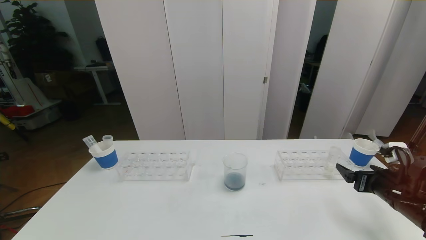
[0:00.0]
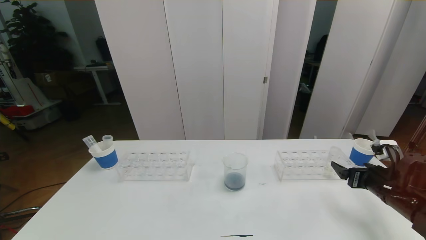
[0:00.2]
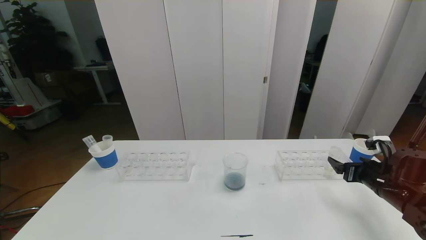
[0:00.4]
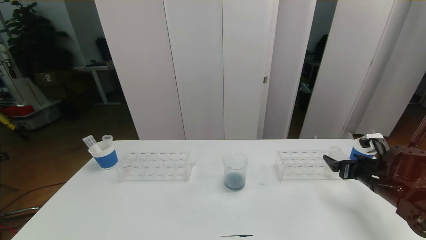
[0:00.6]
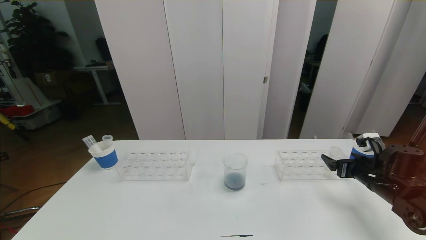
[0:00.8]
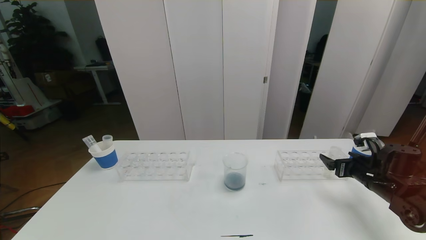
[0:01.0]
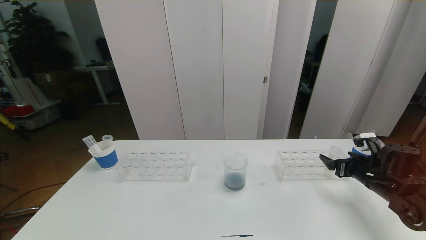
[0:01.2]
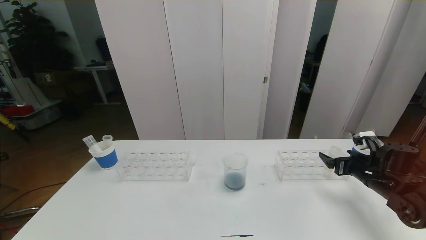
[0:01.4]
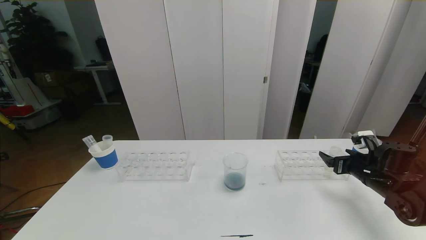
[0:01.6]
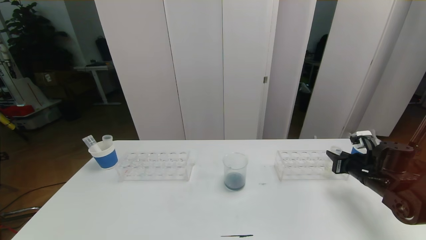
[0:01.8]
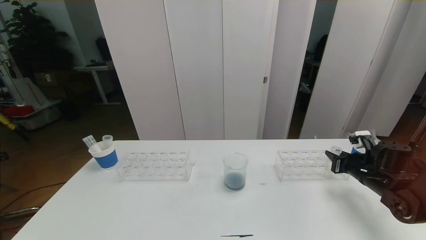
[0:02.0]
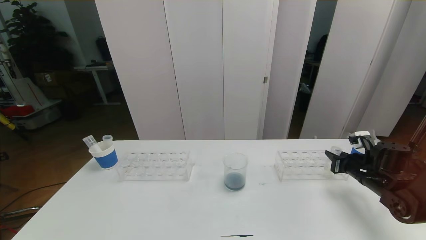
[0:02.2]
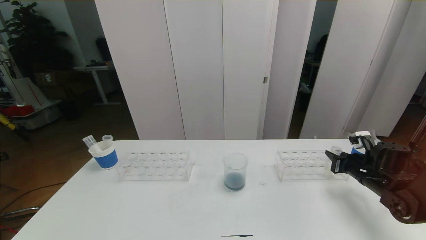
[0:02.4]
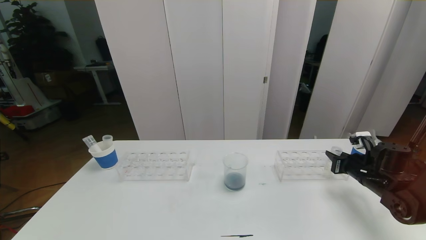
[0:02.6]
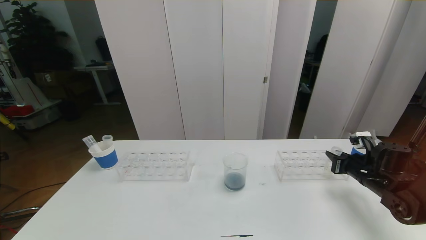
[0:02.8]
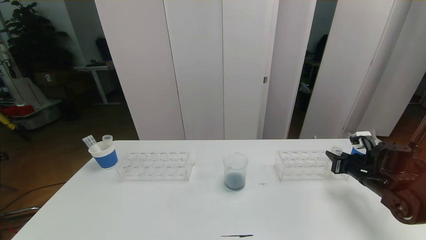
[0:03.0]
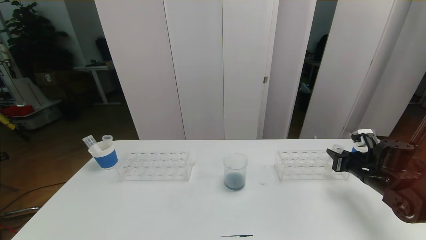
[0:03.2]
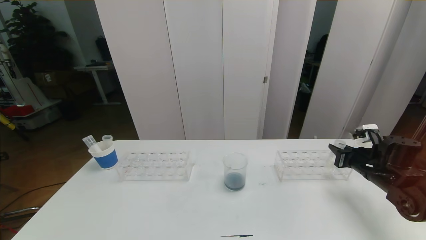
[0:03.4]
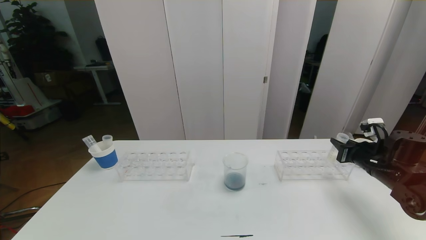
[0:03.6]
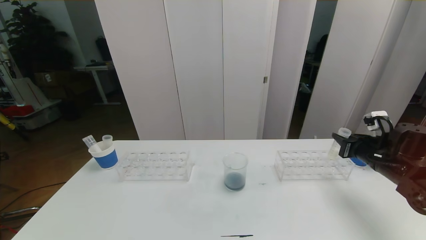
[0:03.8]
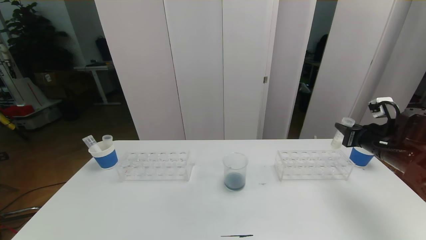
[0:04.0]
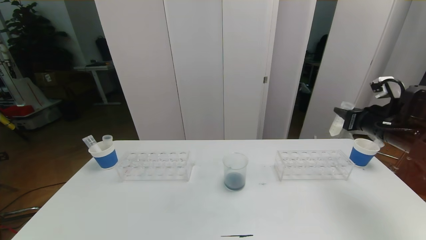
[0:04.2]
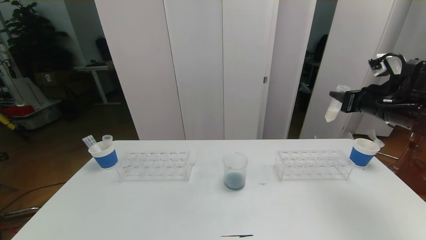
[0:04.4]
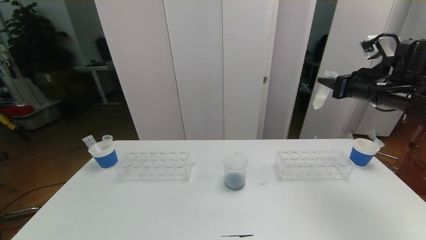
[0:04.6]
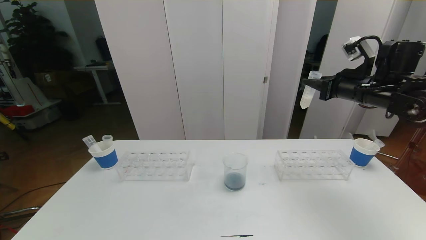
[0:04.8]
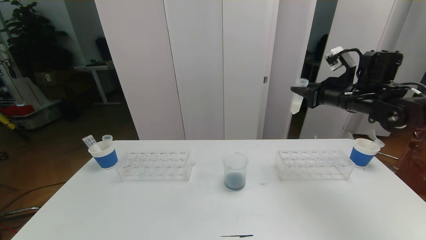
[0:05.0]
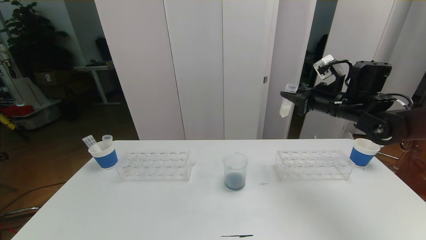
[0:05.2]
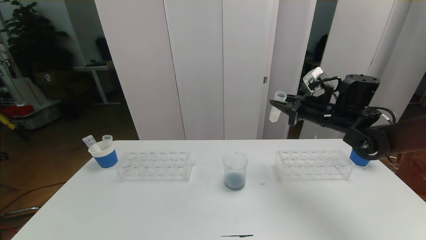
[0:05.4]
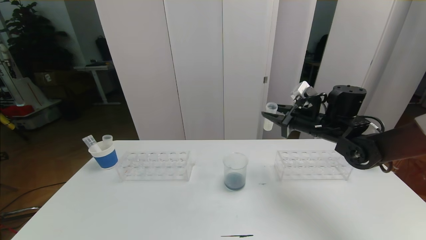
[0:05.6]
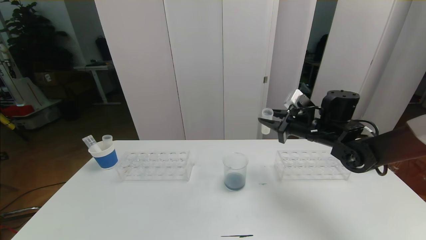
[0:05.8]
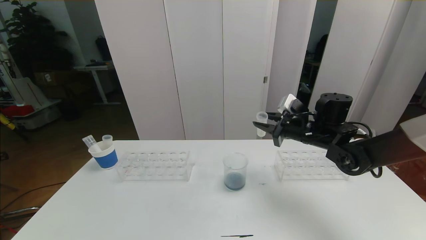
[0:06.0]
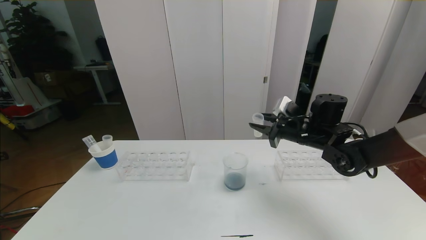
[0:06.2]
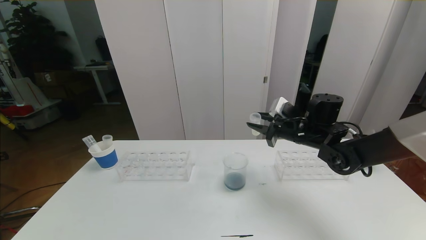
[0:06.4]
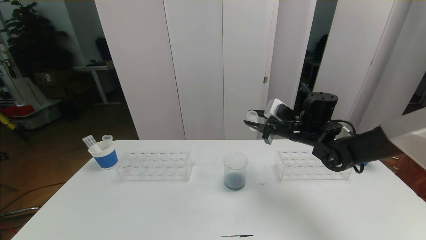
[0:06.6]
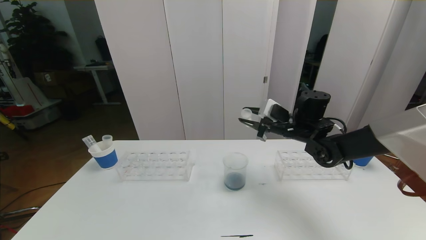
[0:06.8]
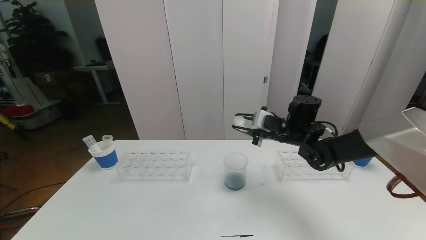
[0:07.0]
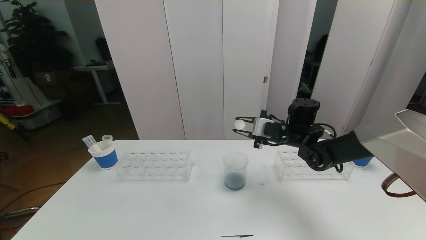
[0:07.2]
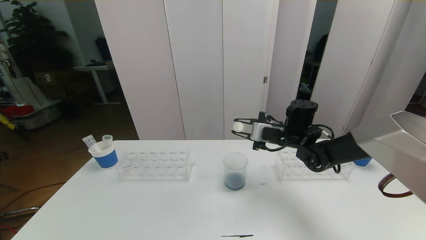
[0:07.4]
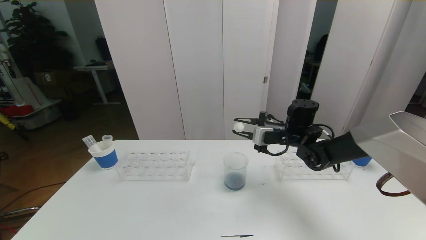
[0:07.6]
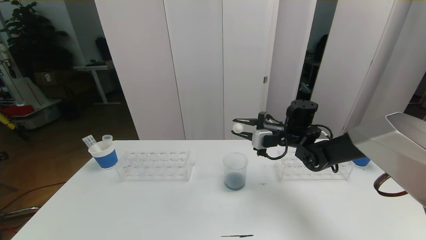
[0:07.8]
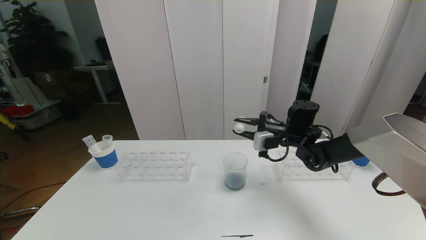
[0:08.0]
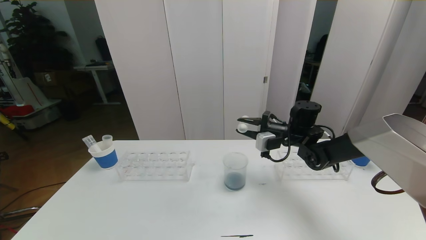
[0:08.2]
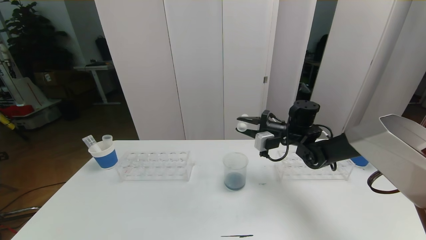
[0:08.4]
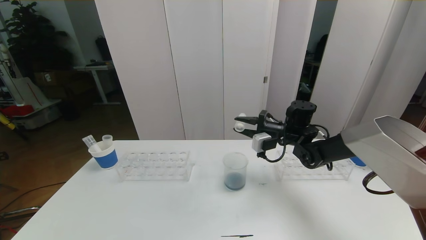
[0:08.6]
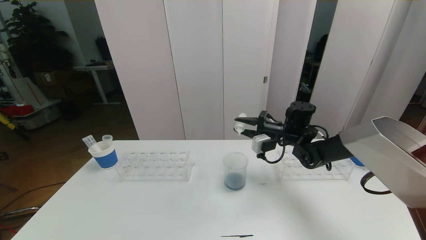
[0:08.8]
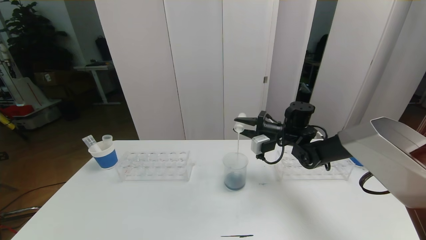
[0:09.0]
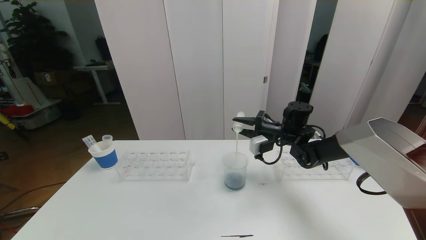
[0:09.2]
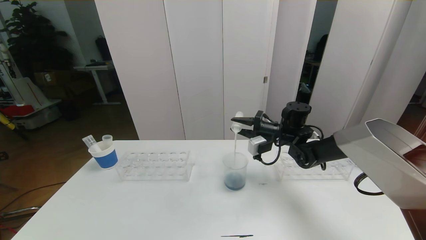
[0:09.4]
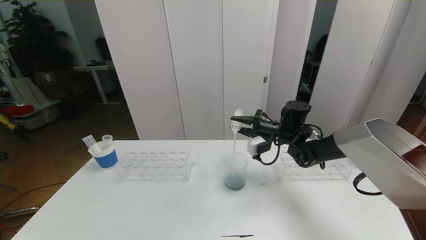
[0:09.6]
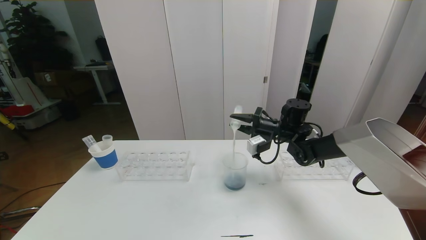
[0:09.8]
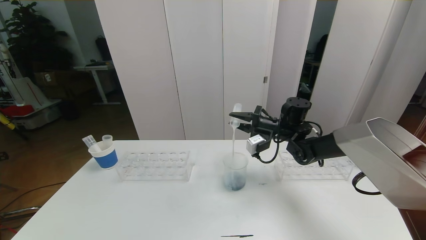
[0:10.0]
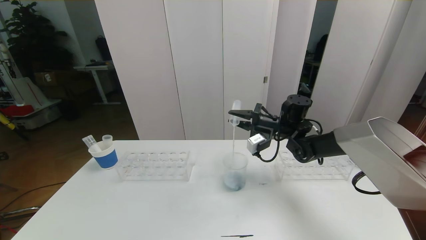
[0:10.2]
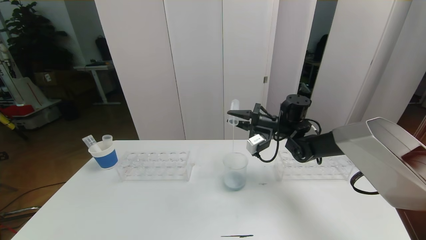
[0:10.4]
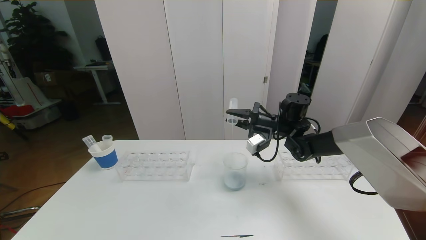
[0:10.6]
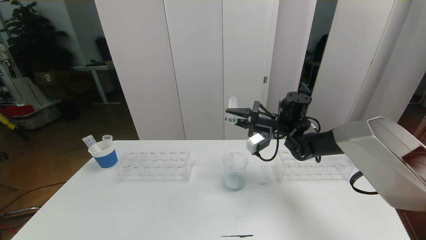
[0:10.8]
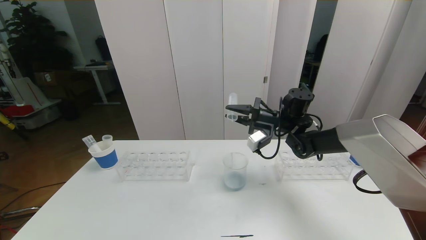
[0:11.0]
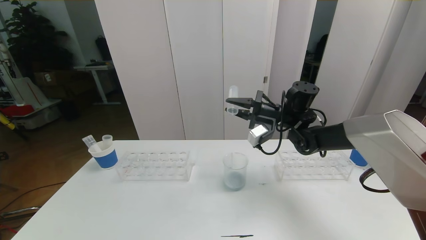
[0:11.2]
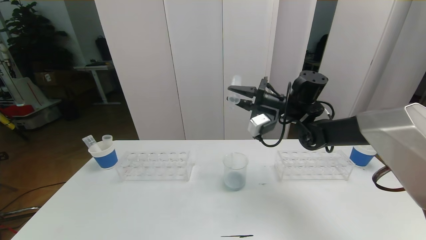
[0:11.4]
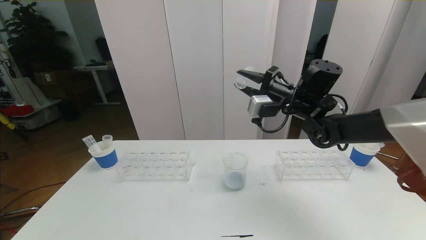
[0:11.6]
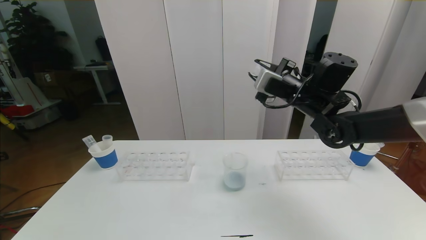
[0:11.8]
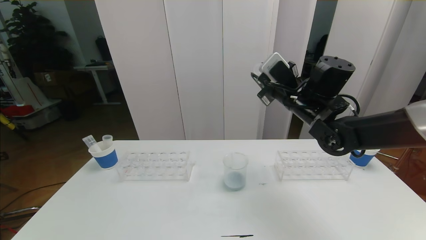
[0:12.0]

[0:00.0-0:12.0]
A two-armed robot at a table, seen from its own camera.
Task of the whole recording: pick up the test tube with red pigment the test tube with blue pigment and the test tube with white pigment by grippers and pour them into the beaker.
0:00.0 to 0:01.6: The right gripper shifts approximately 10 cm forward.
0:01.6 to 0:03.0: The right gripper closes.
0:03.0 to 0:04.4: The right gripper goes some 20 cm upward.
0:04.4 to 0:06.0: The right gripper travels to the left and downward by approximately 15 cm.
0:06.0 to 0:07.6: The right gripper moves approximately 5 cm.
0:07.6 to 0:09.0: There are only small adjustments of the grippers.
0:09.0 to 0:10.4: The grippers make only small movements.
0:10.4 to 0:12.0: The right gripper goes some 15 cm upward and backward.

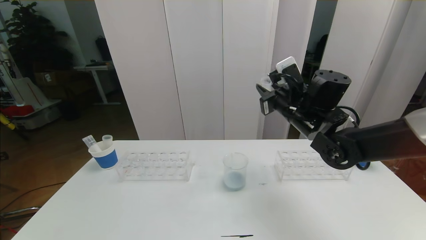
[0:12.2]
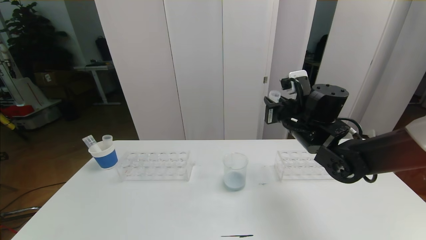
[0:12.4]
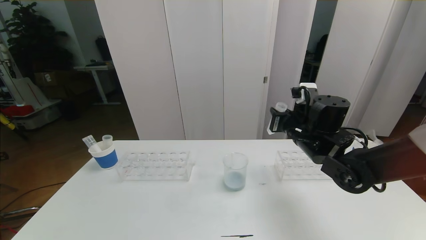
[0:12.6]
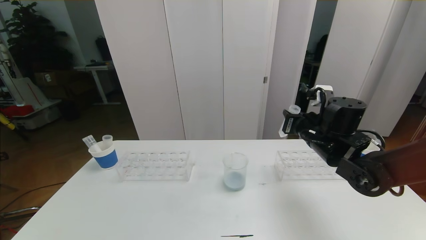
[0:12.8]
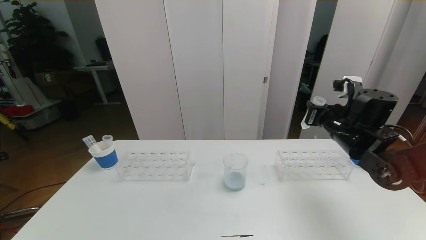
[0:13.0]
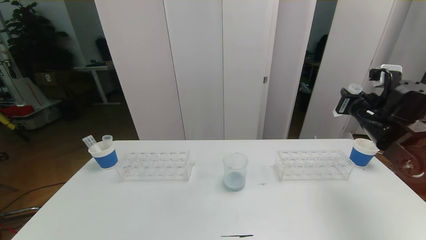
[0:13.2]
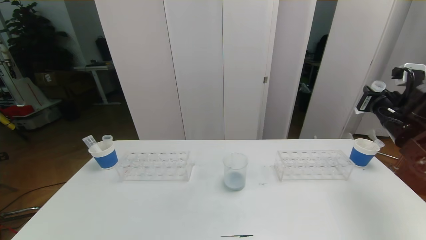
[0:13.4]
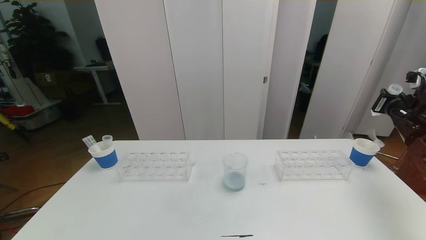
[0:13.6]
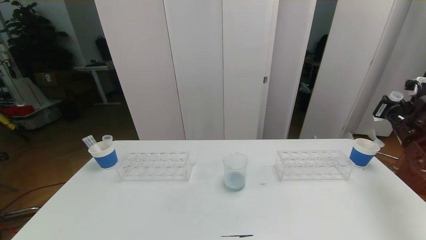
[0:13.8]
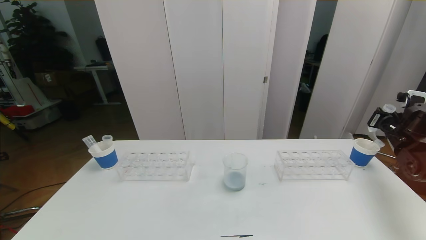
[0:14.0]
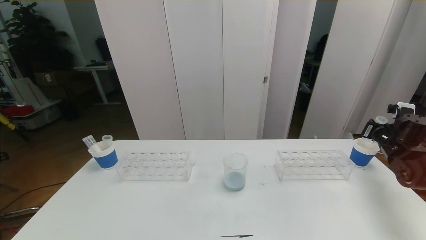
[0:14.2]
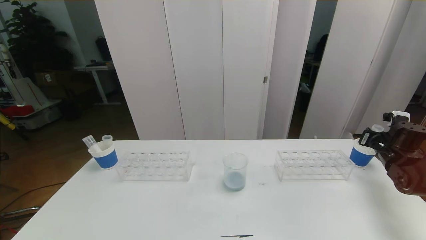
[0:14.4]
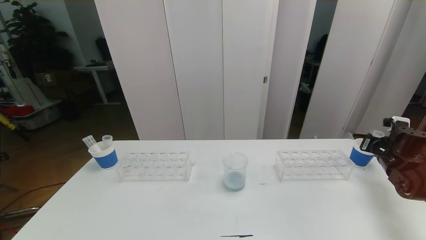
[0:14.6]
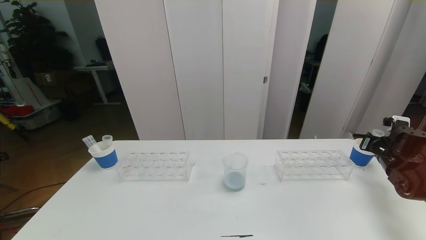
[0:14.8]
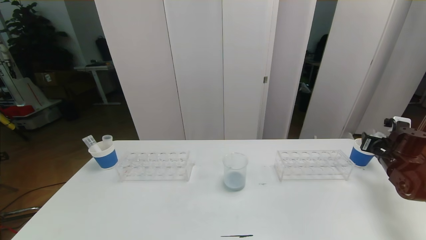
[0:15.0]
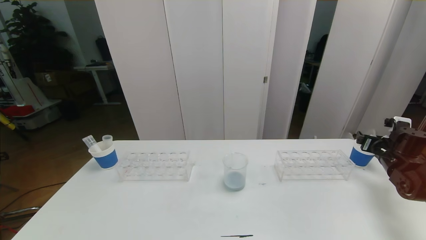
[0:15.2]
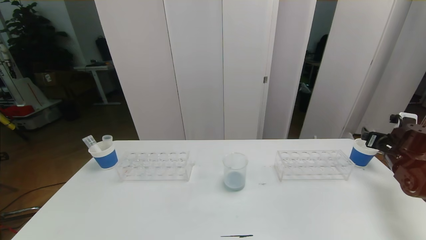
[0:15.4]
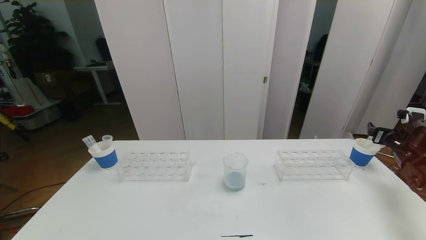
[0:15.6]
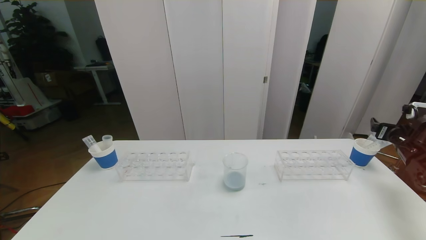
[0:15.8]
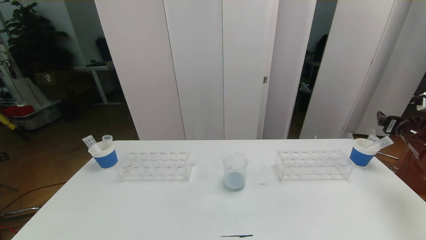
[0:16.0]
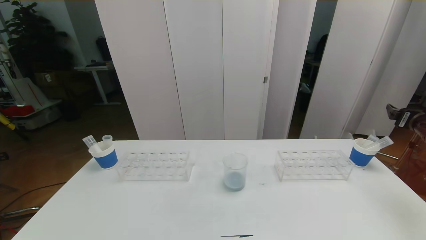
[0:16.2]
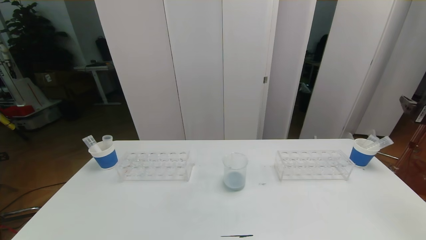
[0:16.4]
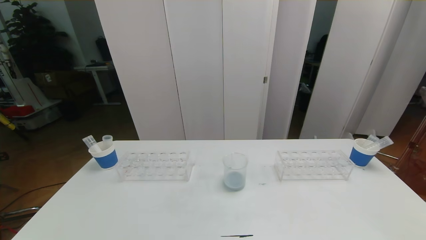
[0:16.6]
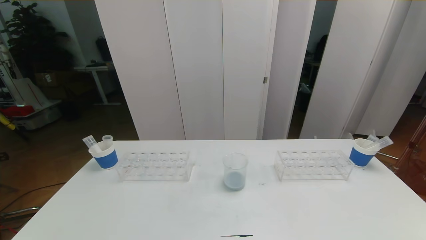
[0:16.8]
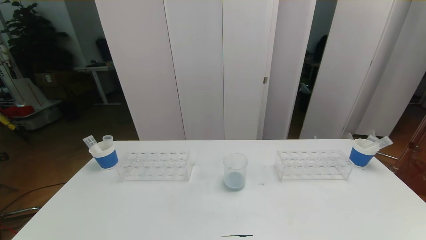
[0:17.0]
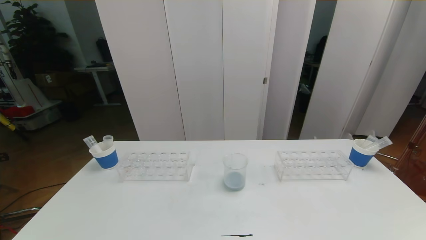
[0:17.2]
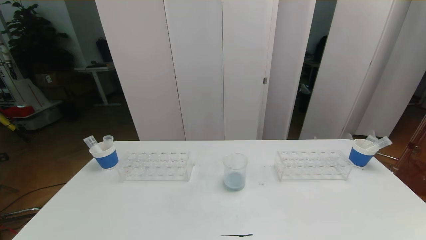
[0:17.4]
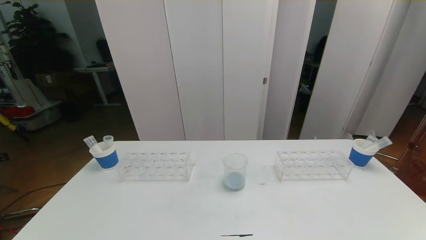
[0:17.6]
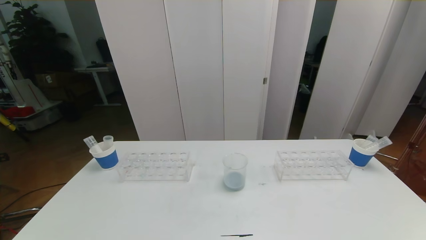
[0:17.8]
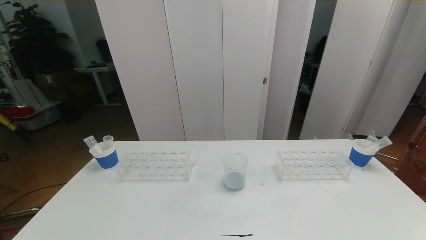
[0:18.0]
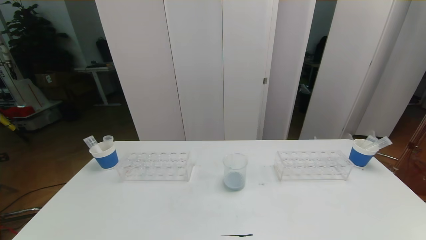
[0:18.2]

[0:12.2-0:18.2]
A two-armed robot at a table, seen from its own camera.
Task of the whole recording: pick up the test tube with red pigment the test tube with blue pigment and the test tube with white pigment by grippers and pour them into the beaker.
Step, 0:12.2 to 0:18.2: Pour the white reagent into the graduated cylinder and place the test tube into the paper cup.
0:12.2 to 0:13.8: The right gripper moves to the right, some 30 cm.
0:13.8 to 0:15.2: The right gripper travels downward by some 10 cm, and opens its fingers.
0:15.2 to 0:16.6: The right gripper moves upward and backward, some 25 cm.
